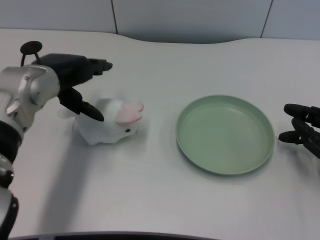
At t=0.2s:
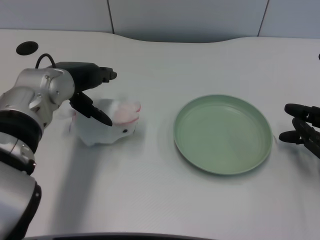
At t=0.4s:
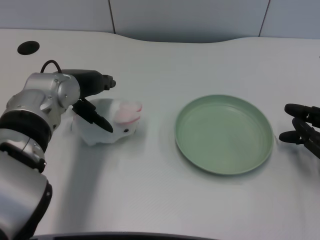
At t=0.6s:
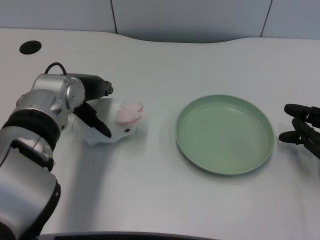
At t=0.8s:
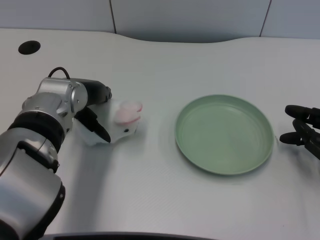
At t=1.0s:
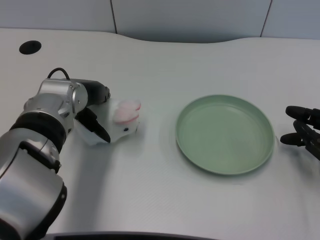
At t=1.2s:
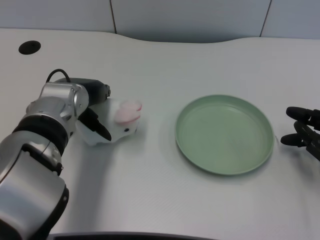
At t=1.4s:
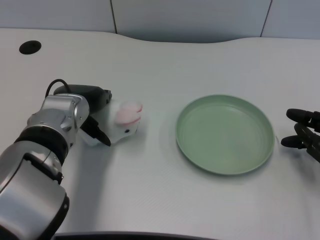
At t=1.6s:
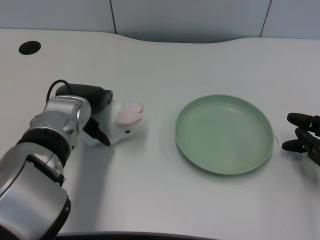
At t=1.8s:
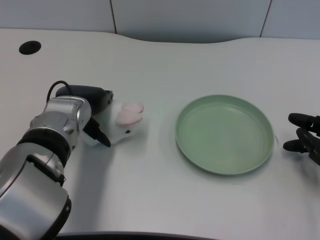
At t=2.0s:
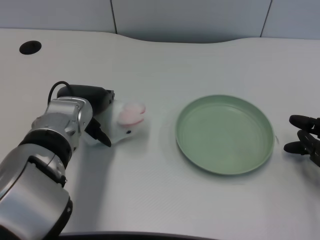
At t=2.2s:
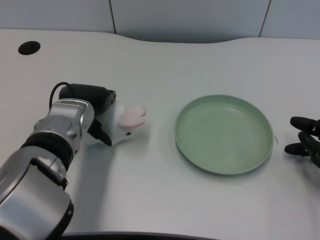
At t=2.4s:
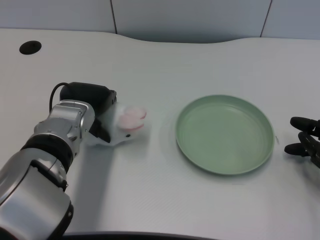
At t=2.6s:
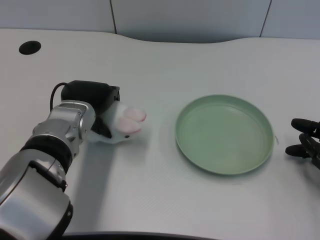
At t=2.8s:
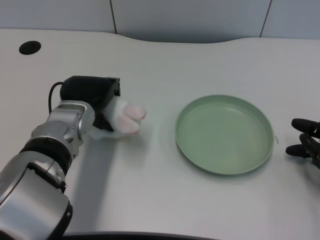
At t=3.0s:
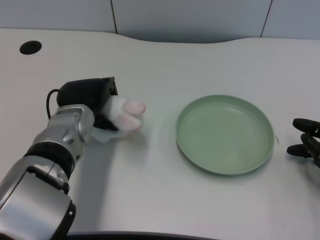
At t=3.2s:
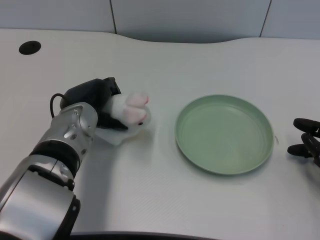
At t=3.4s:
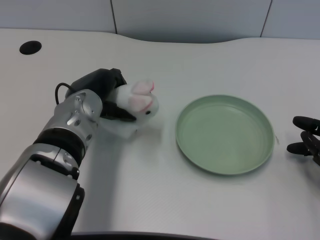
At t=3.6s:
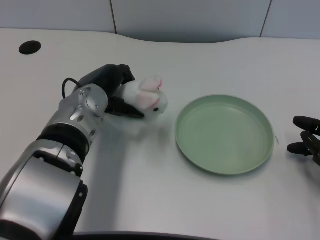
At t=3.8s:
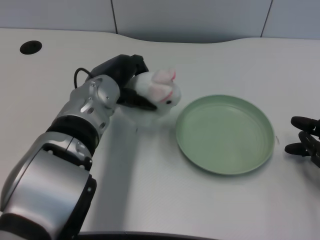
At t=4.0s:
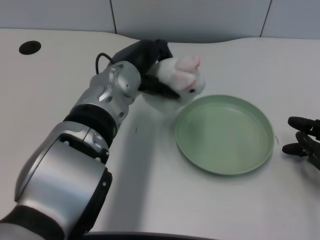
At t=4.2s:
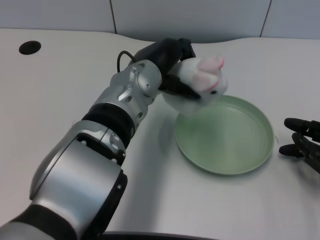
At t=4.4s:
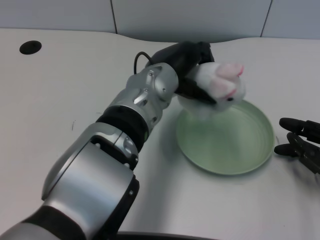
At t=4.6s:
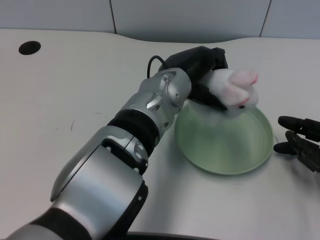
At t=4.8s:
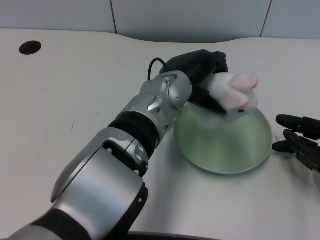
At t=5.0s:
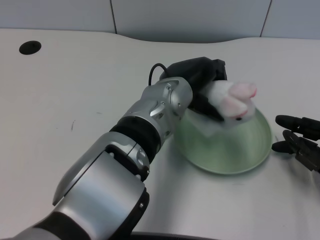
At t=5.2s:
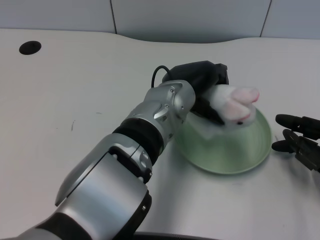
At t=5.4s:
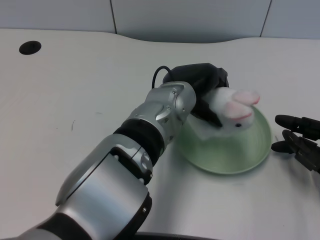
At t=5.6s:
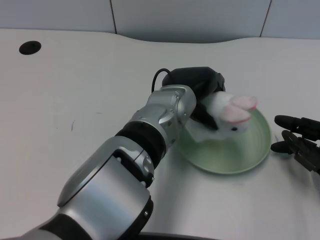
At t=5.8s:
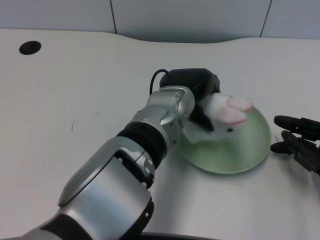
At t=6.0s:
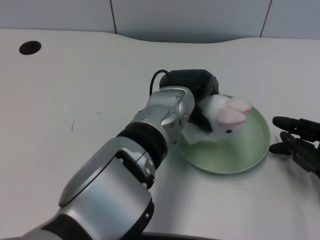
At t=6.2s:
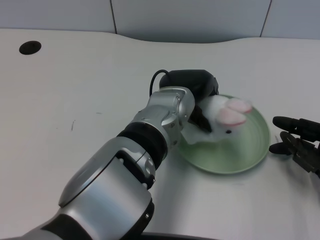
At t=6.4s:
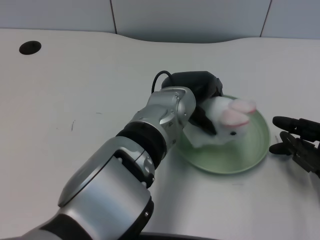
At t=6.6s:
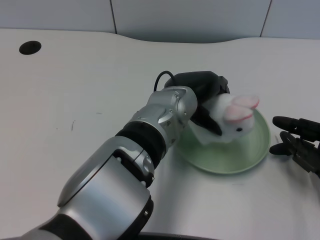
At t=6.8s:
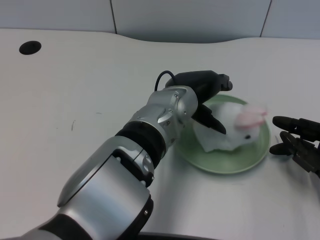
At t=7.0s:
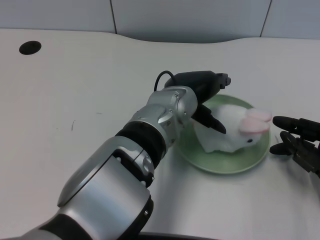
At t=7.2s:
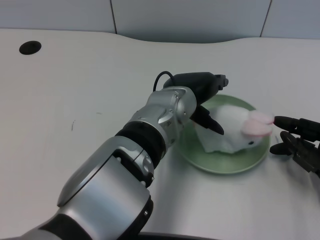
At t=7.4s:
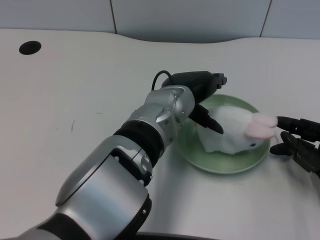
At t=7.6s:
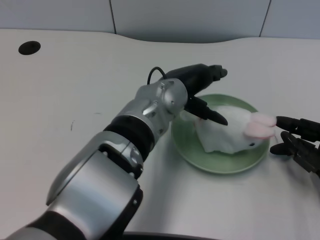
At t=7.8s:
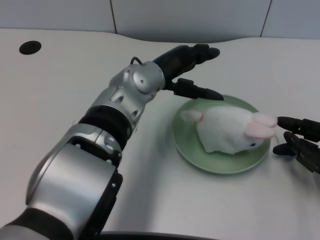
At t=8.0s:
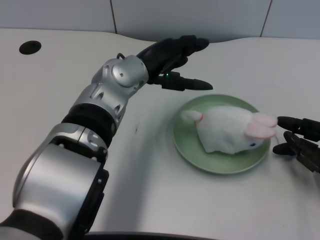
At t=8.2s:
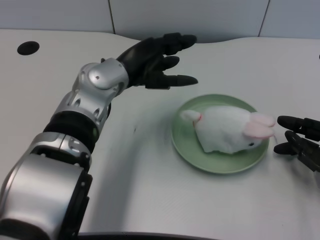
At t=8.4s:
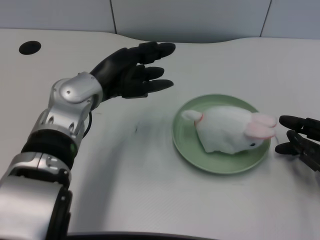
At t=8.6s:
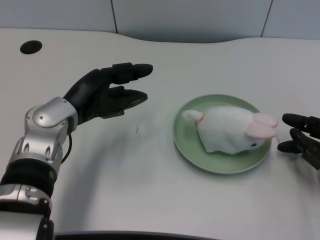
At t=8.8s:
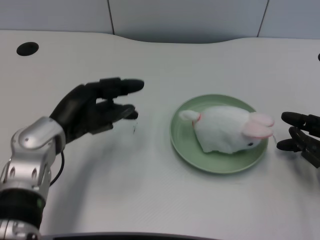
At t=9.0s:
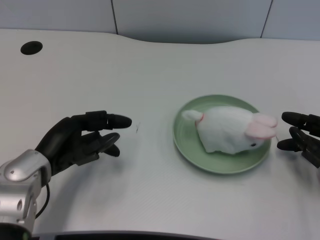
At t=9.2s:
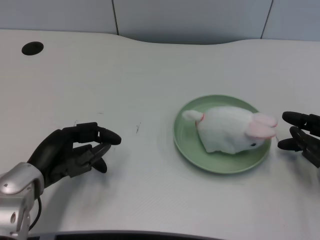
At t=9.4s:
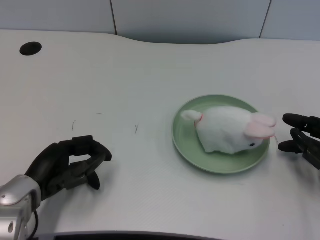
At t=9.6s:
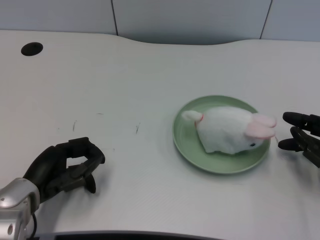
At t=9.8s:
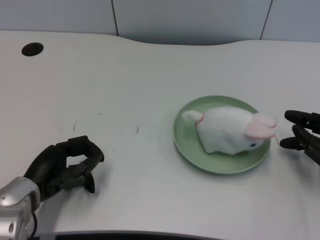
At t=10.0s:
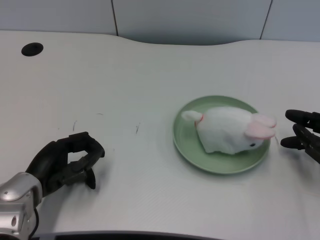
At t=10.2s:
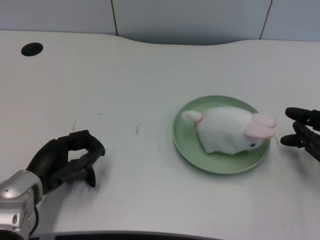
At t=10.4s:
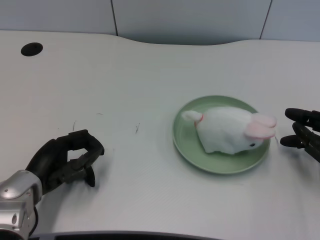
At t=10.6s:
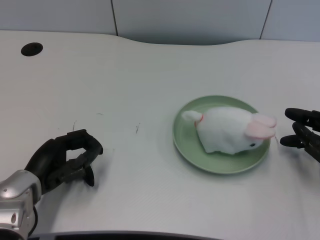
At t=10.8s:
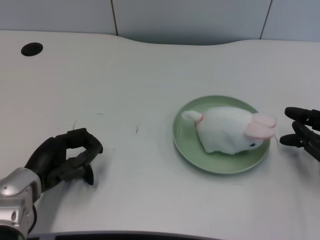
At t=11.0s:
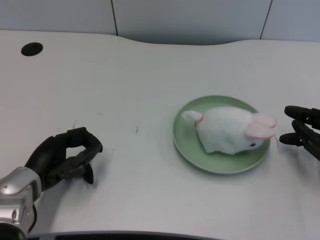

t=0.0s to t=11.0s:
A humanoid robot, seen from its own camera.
Task of the whole recording: pick up the rabbit doll from the table and place it on the plate.
Step, t=0.0s to t=3.0s: Grasp the rabbit doll with the left gripper.
Step, t=3.2s to t=7.4s: Place the rabbit doll into the plate with the left gripper.
t=0.0s to t=1.6s: The left hand heads downward, covering some 5 cm.
t=3.2s to t=4.8s: The left hand is displaced to the right and upward by roughly 15 cm.
t=4.8s to t=6.2s: There are only small adjustments of the hands.
t=6.2s to t=7.8s: The left hand shifts by some 5 cm.
t=7.8s to t=9.4s: The left hand travels to the left, downward and backward by about 25 cm.
t=9.4s to t=11.0s: The hands move only a little.
